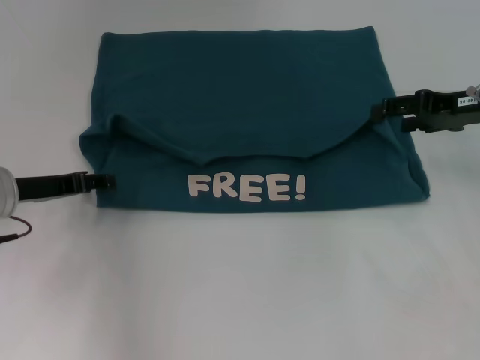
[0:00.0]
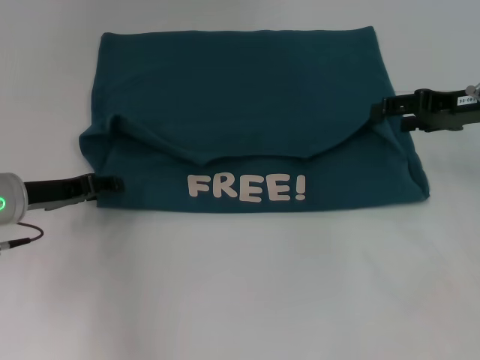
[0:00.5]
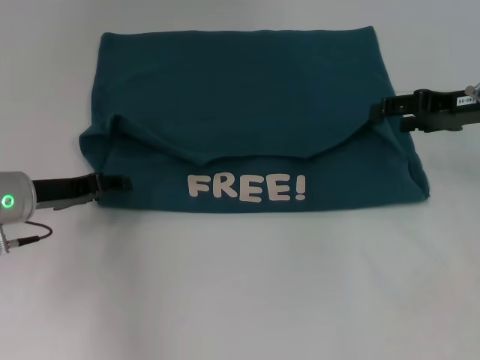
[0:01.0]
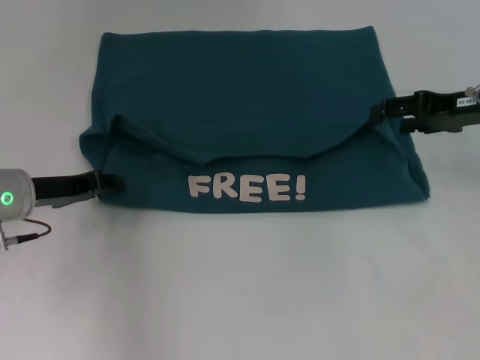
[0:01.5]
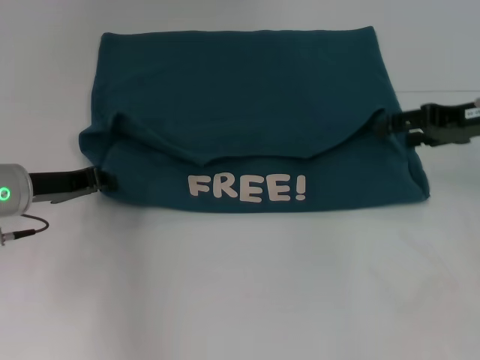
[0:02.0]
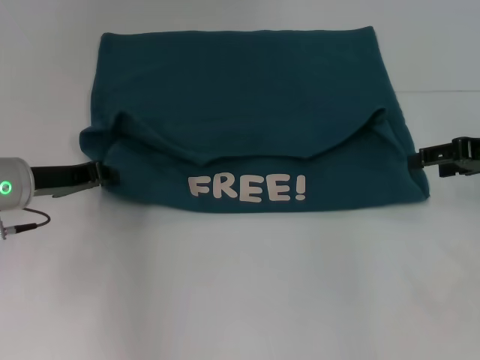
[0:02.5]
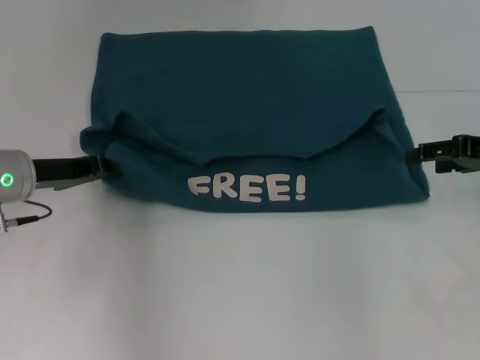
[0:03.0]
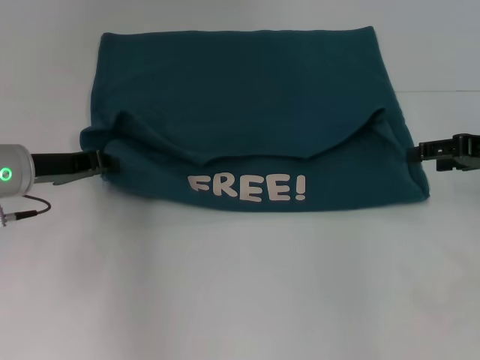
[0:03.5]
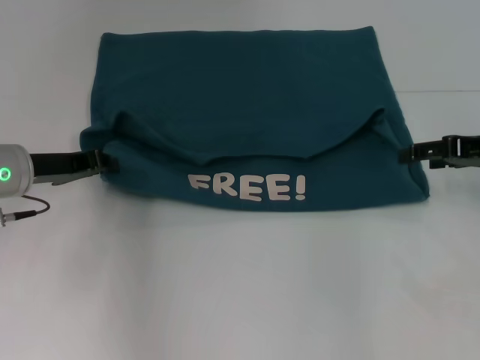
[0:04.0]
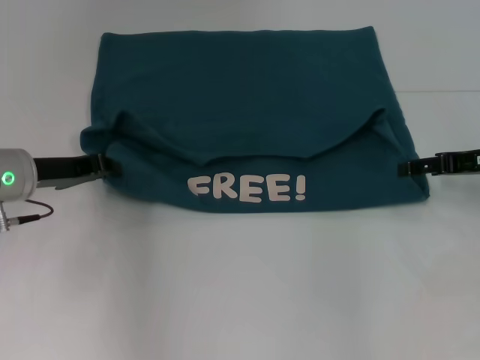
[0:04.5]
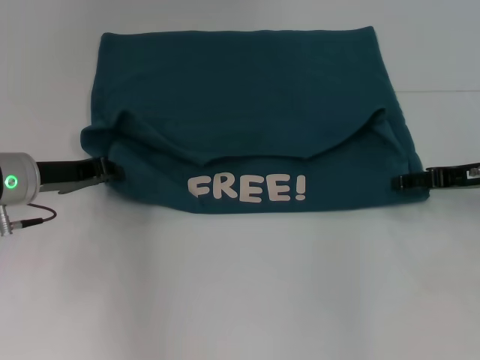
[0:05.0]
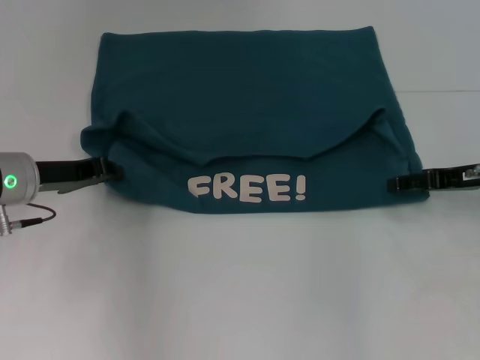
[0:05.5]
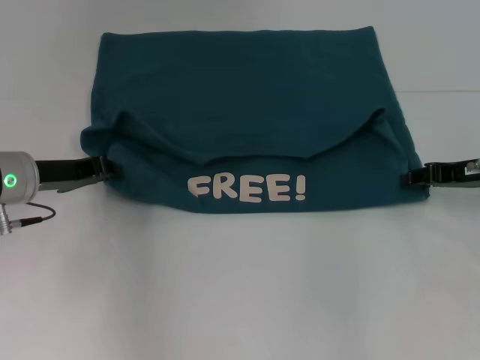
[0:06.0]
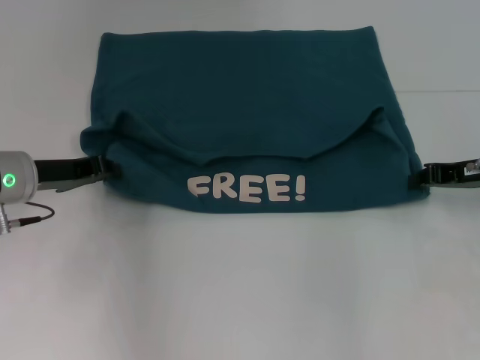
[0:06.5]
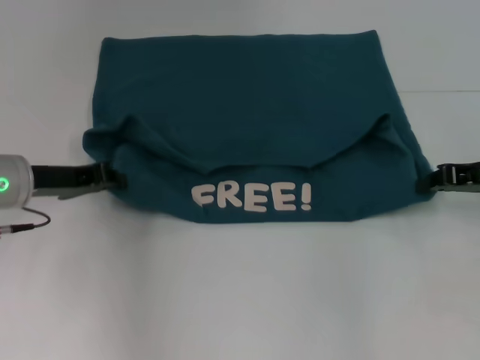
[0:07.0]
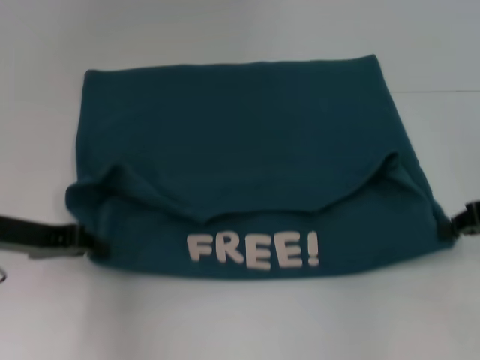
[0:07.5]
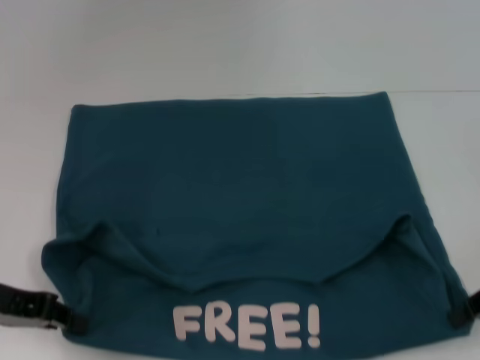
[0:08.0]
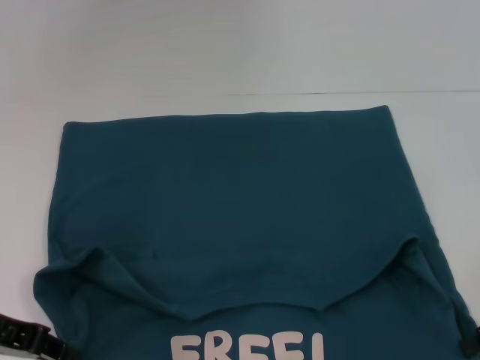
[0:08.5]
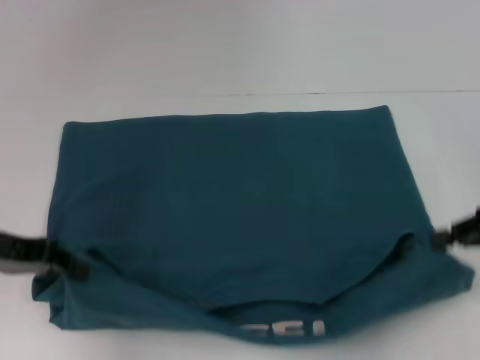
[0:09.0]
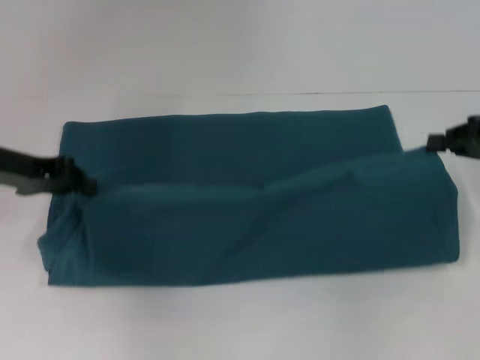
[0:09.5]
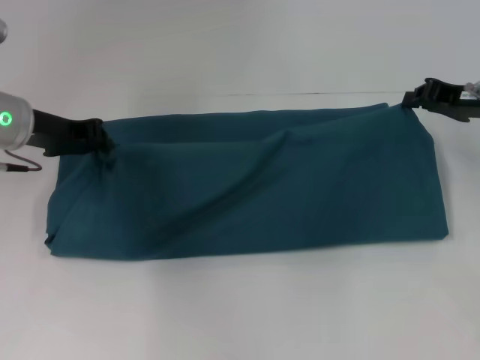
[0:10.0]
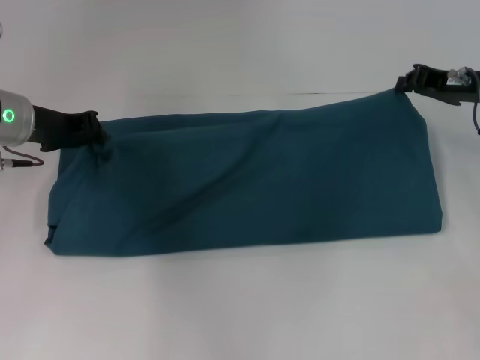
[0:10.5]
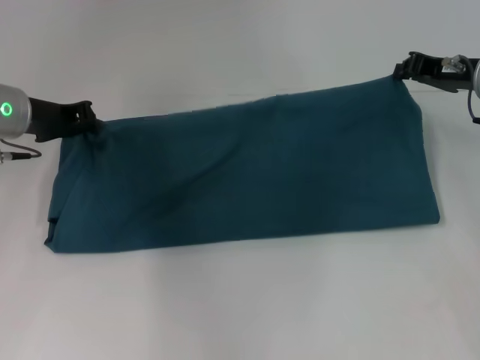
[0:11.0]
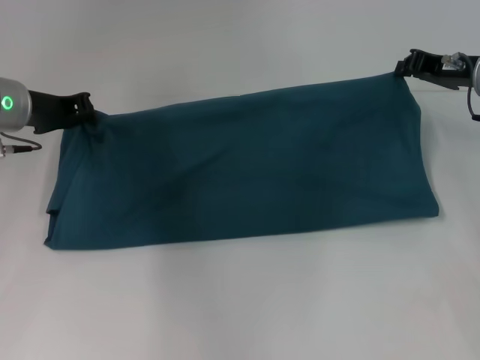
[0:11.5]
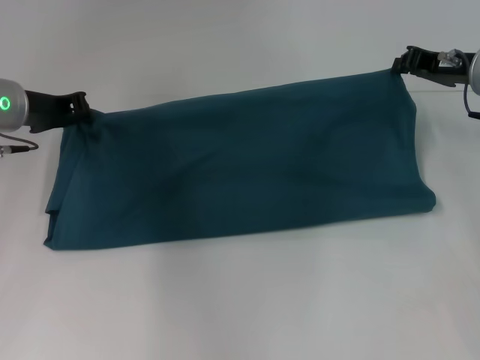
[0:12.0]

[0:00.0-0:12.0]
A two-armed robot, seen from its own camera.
Step, 0:00.0 to 0:08.0: Pull the clothes with your left hand.
Step, 0:00.0 to 0:08.0: Pull the clothes with your right hand.
0:00.0 to 0:02.0: The left gripper closes its fingers.
0:02.0 to 0:04.0: There are only small adjustments of the grippers.
0:04.0 to 0:06.0: The right gripper closes.
0:06.0 to 0:08.0: Both grippers move backward, some 10 cm. The right gripper closes its fingers.
0:08.0 to 0:10.0: Both grippers travel together forward, roughly 15 cm.
0:10.0 to 0:12.0: There are only small adjustments of the grippers.

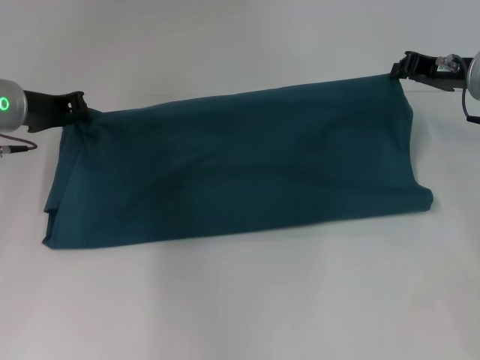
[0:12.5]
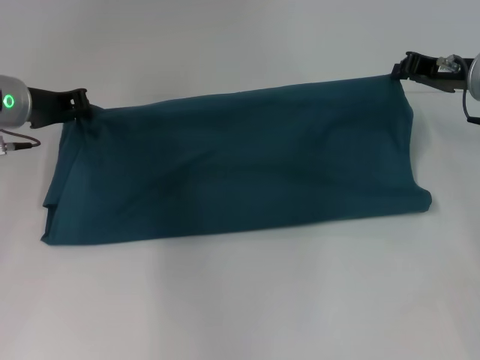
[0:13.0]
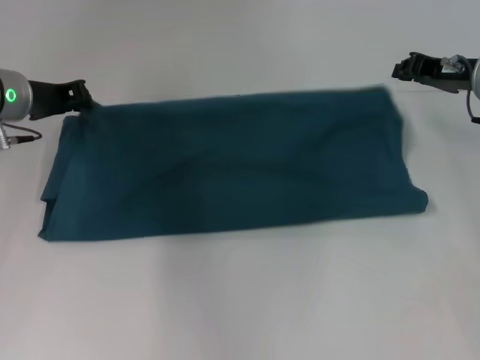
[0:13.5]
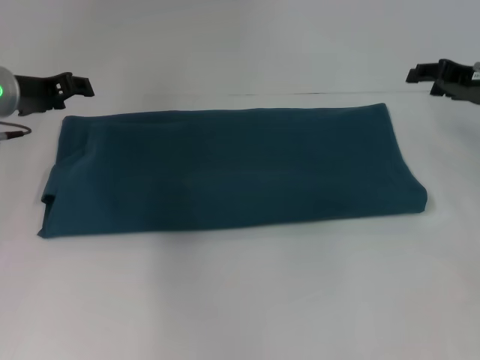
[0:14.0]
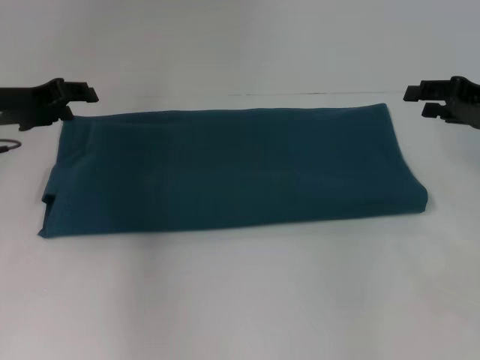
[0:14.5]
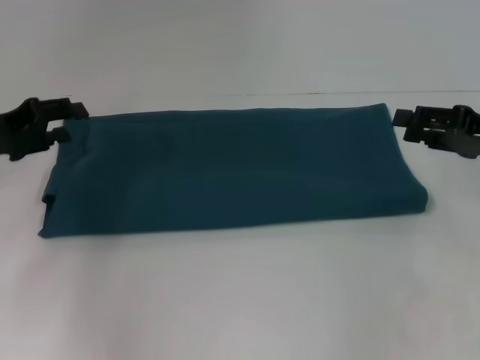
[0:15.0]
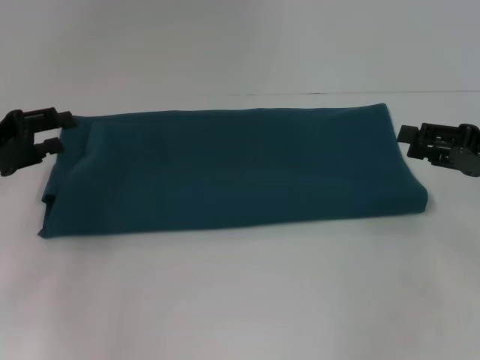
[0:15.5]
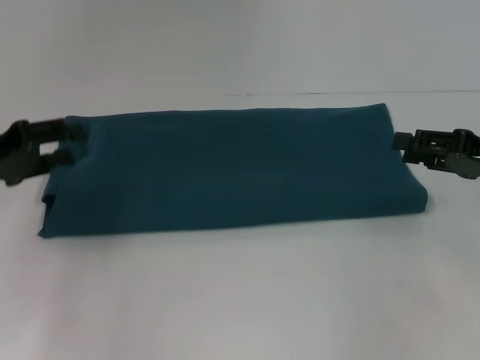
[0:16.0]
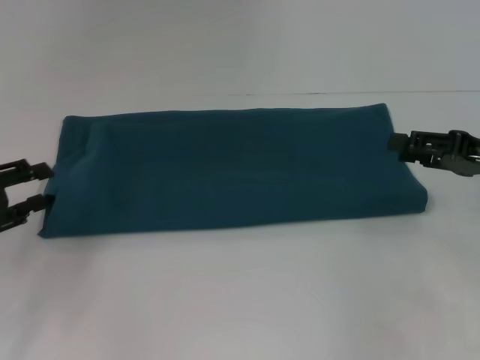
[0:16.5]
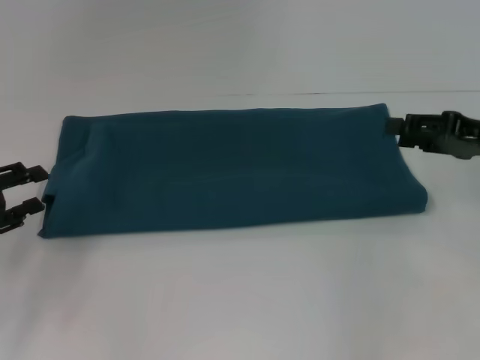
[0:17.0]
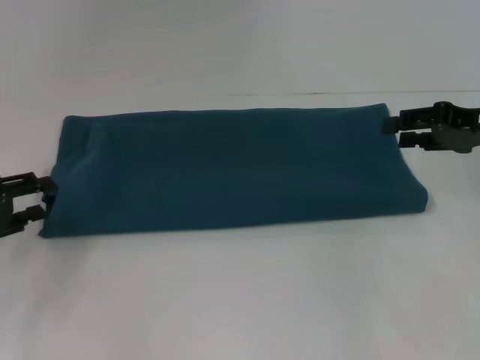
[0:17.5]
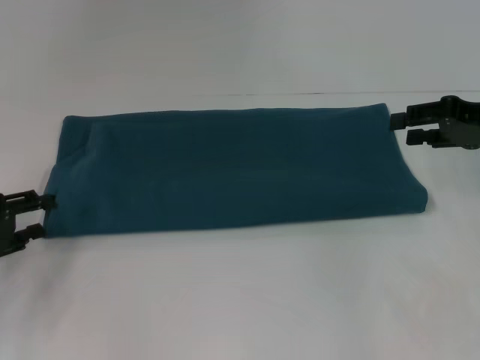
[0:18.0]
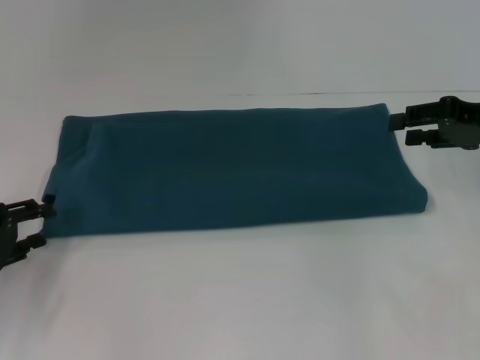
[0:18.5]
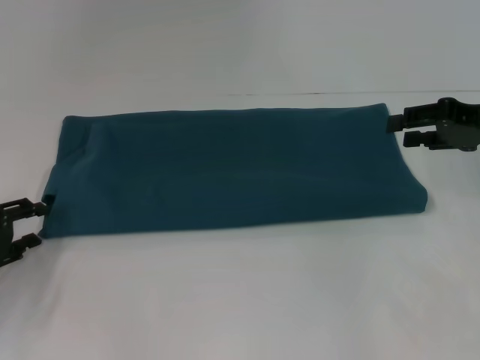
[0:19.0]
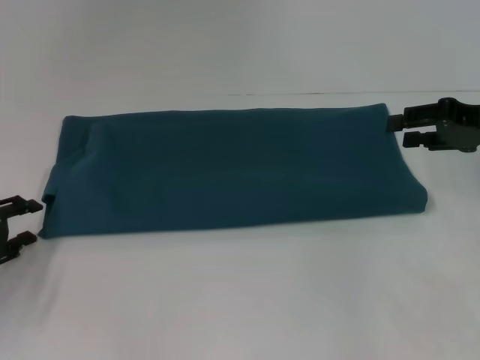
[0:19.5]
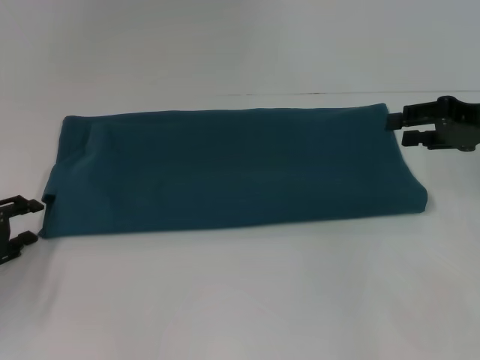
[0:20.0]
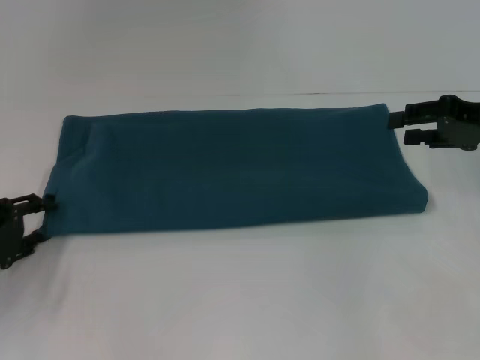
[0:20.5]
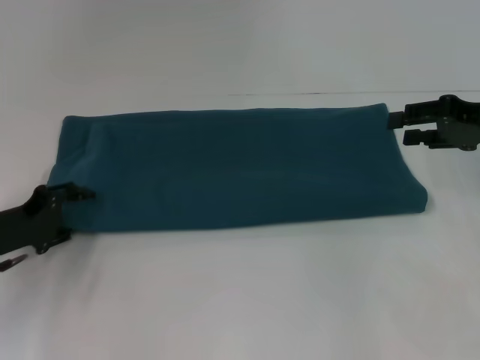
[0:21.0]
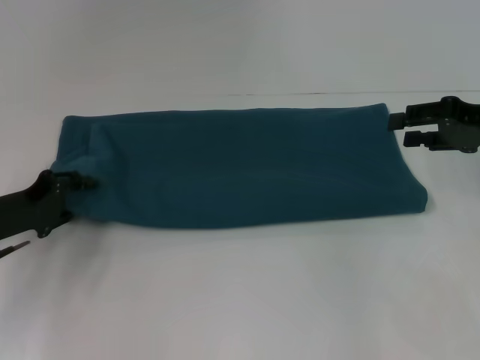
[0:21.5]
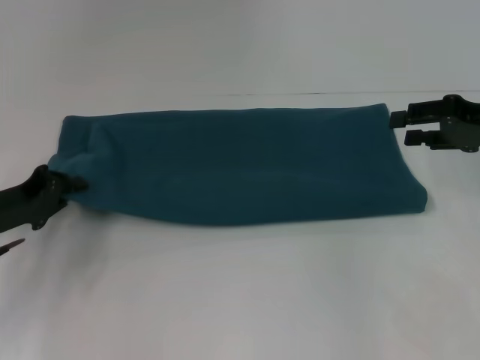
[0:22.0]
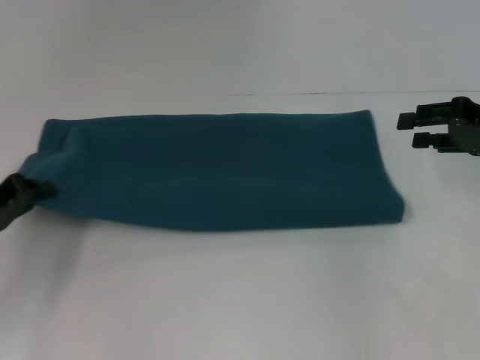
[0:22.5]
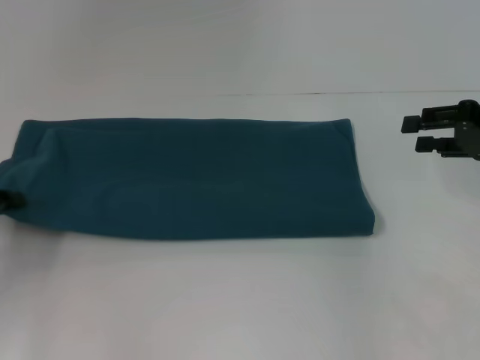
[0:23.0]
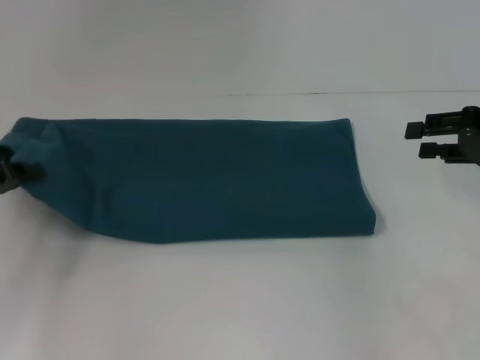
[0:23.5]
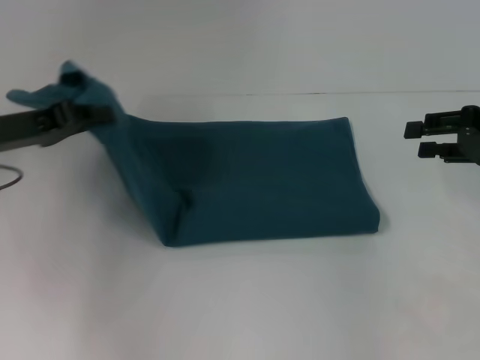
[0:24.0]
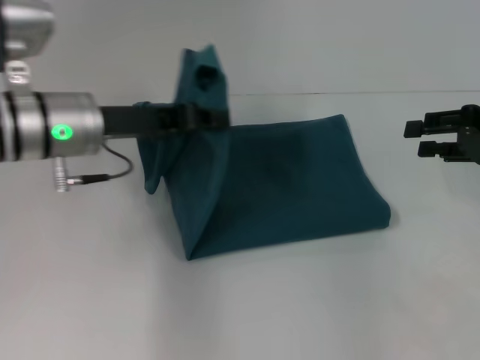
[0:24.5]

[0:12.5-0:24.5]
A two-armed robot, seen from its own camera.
0:12.5 to 0:14.5: The left gripper opens its fingers, while the right gripper moves to the right, roughly 5 cm, and opens up.
0:14.5 to 0:16.5: The left gripper moves backward and to the left, about 15 cm. The right gripper shifts roughly 5 cm backward.
0:16.5 to 0:18.5: The right gripper moves about 5 cm.
0:18.5 to 0:20.5: The grippers make only small movements.
0:20.5 to 0:22.5: The left gripper closes.
0:22.5 to 0:24.5: The left gripper is displaced to the right, upward and forward by about 20 cm.

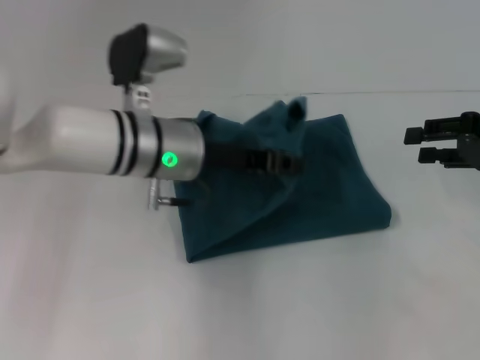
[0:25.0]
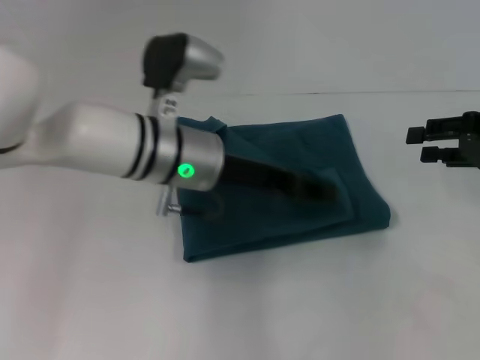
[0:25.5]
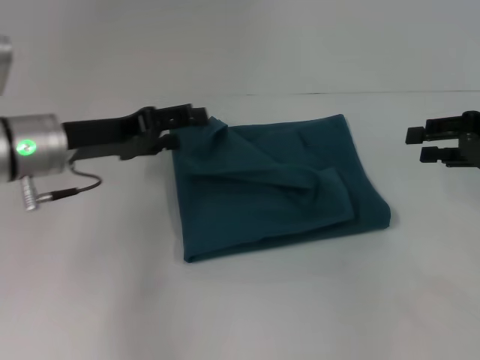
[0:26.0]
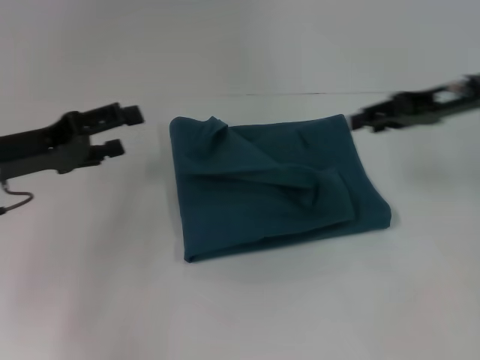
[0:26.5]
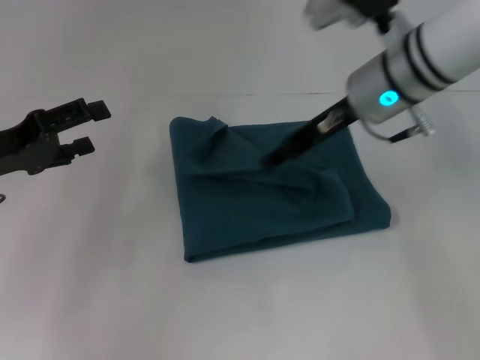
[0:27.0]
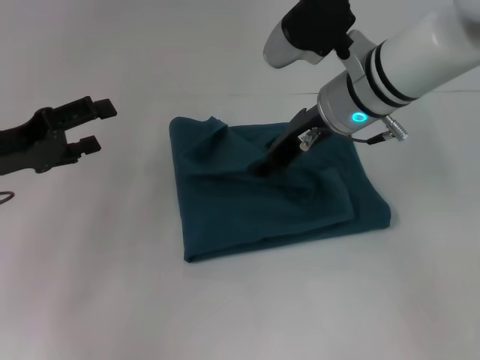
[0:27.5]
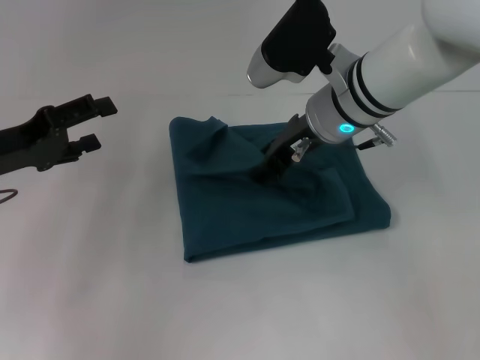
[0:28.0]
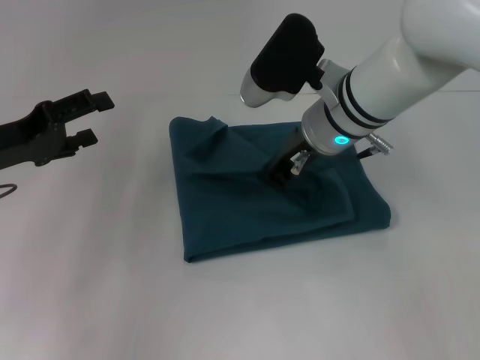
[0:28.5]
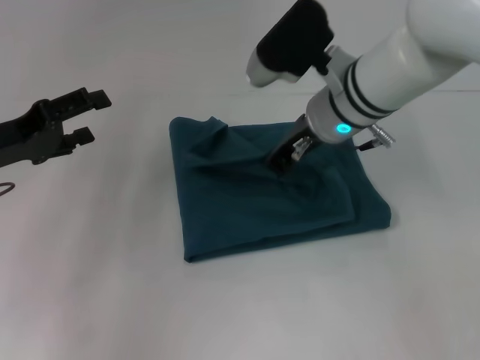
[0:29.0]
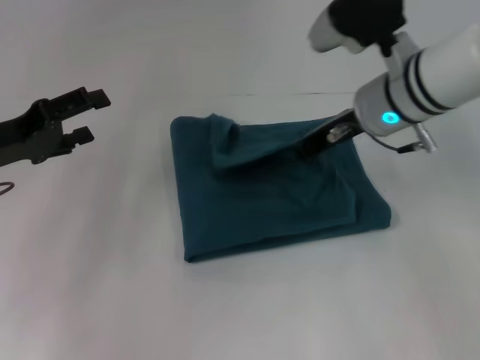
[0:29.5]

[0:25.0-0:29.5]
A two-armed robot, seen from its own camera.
0:25.0 to 0:27.0: The grippers both shift to the left by approximately 20 cm. The left gripper opens up.
0:27.0 to 0:29.5: The right gripper closes.
